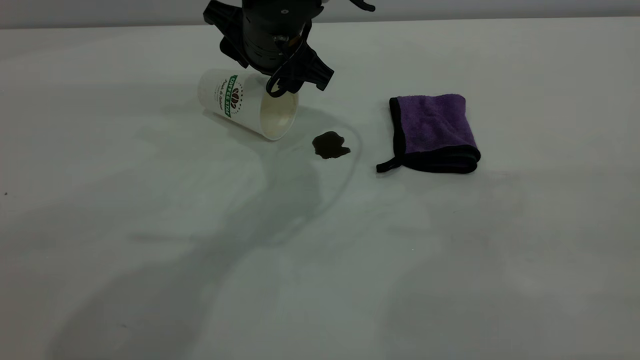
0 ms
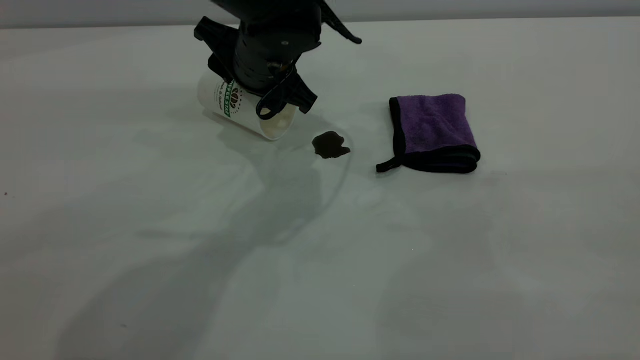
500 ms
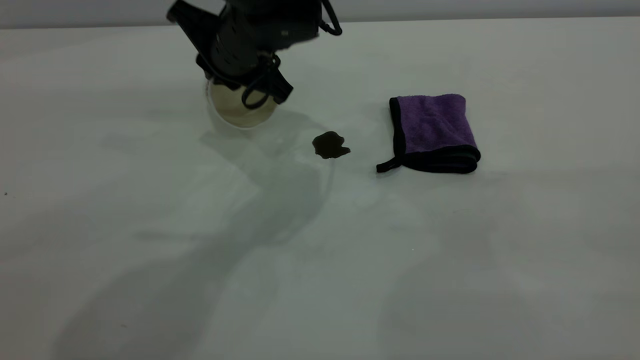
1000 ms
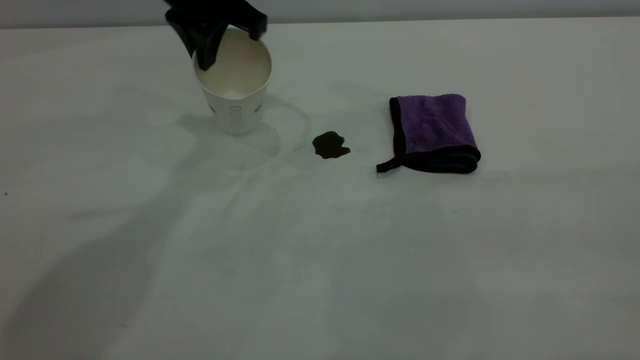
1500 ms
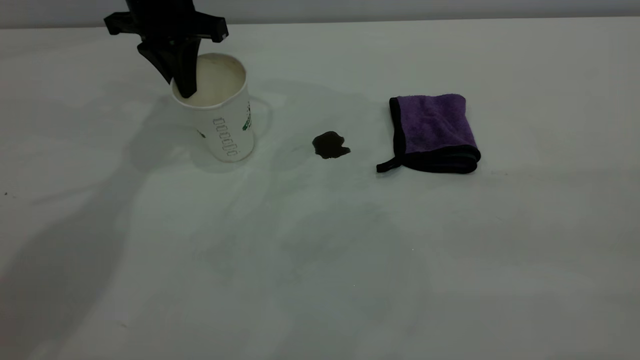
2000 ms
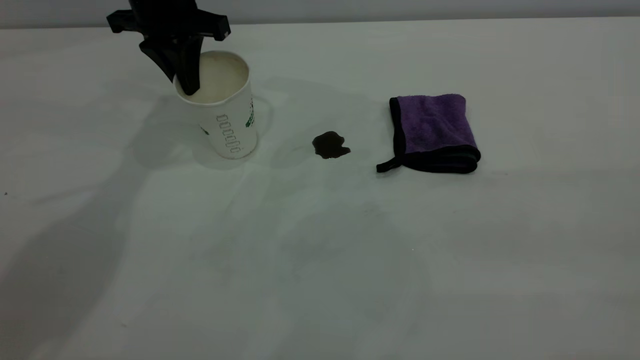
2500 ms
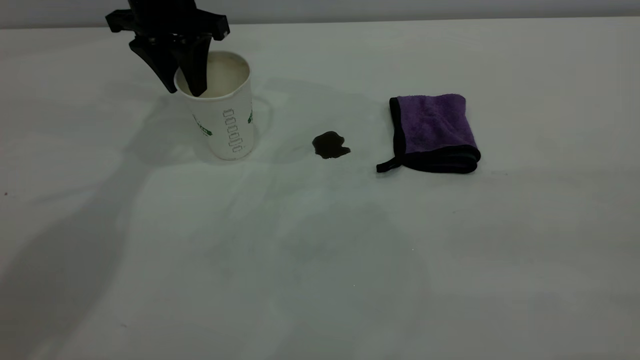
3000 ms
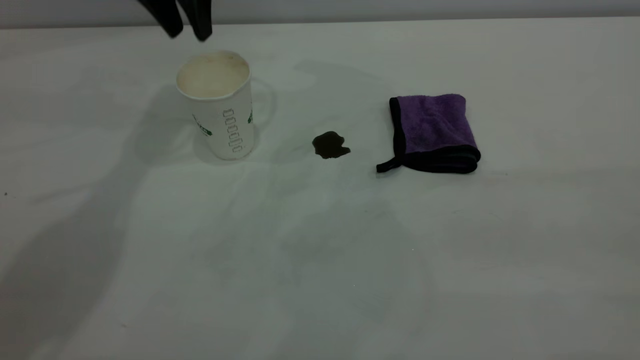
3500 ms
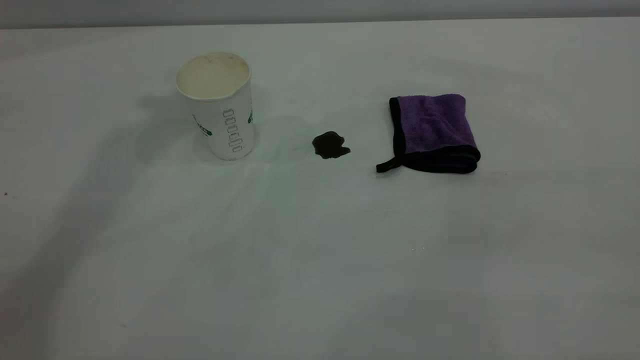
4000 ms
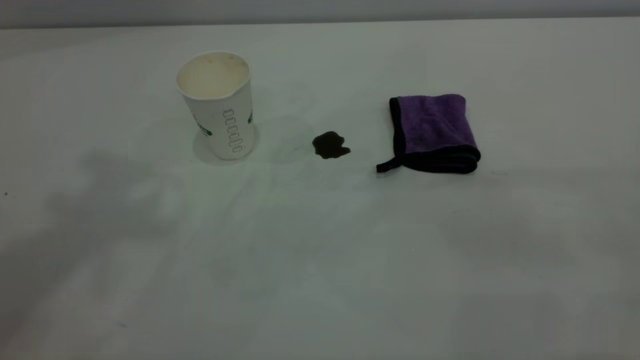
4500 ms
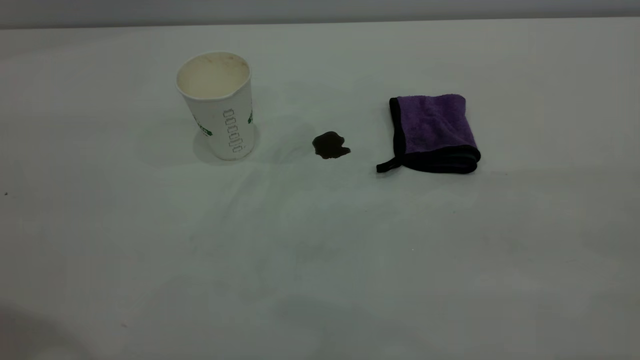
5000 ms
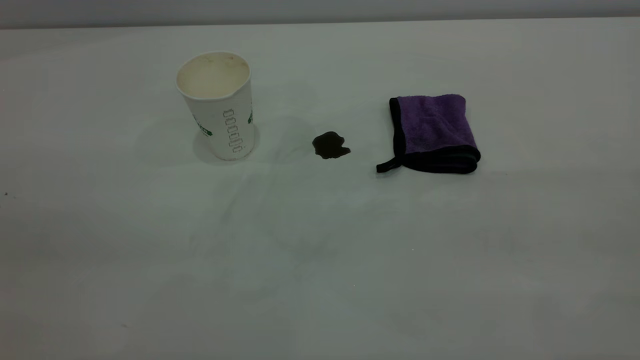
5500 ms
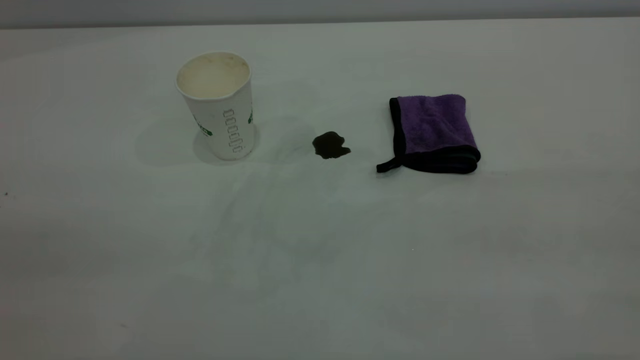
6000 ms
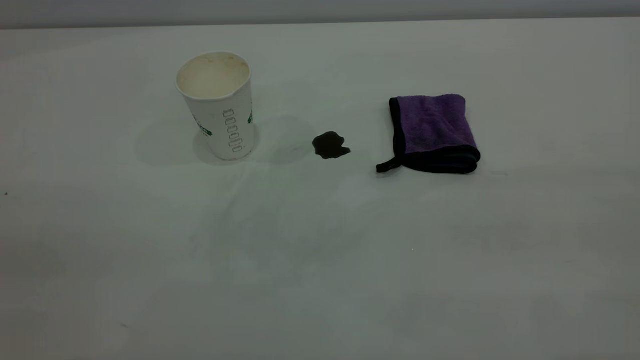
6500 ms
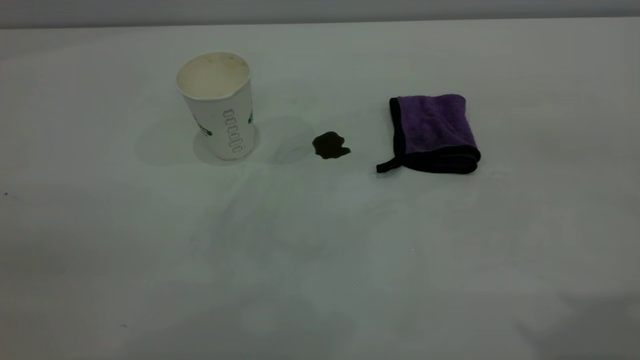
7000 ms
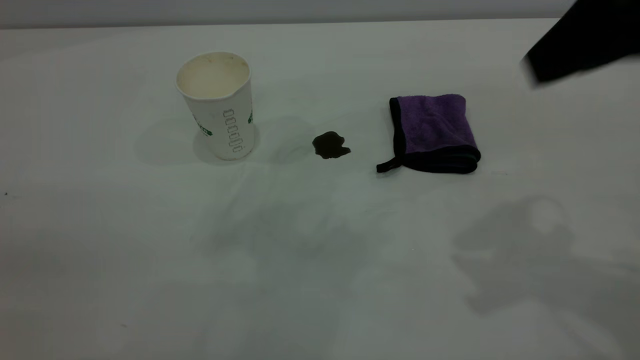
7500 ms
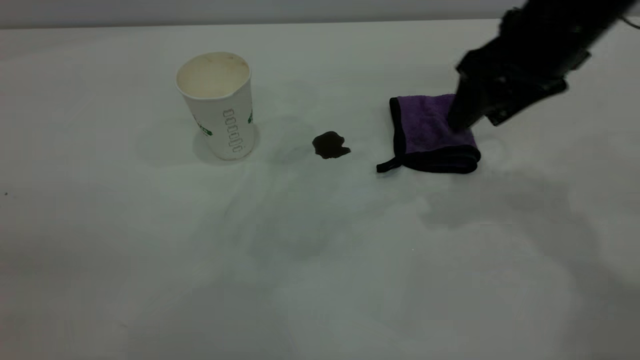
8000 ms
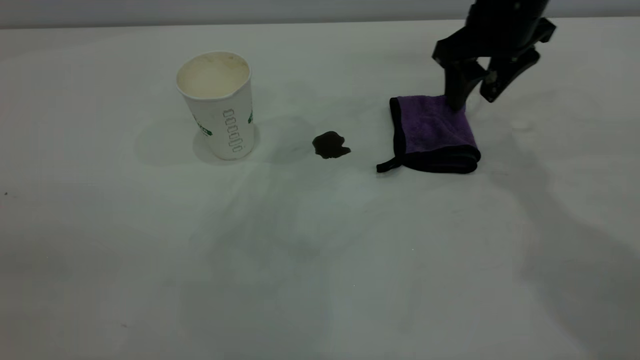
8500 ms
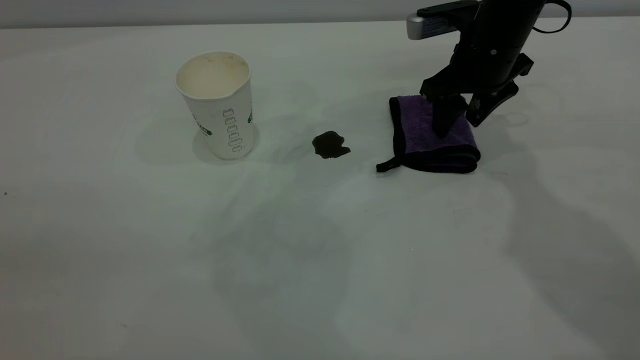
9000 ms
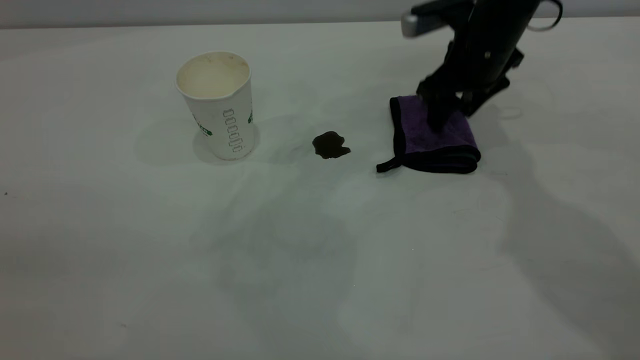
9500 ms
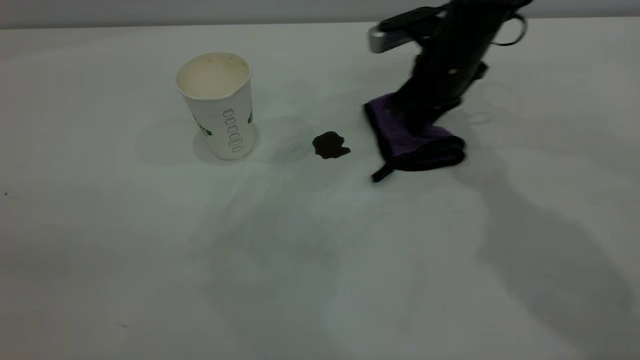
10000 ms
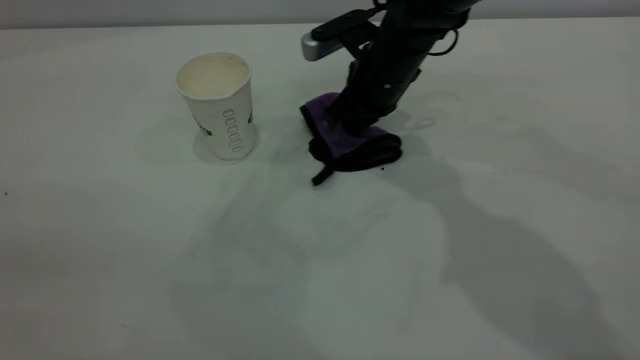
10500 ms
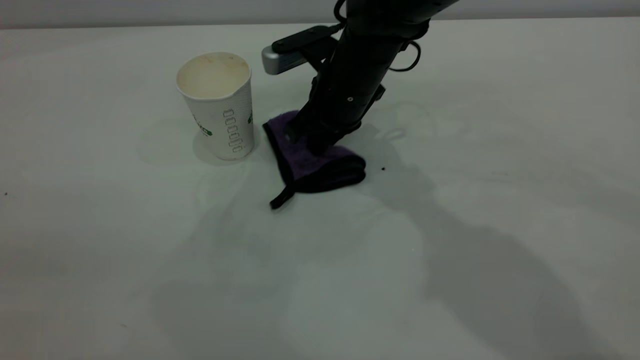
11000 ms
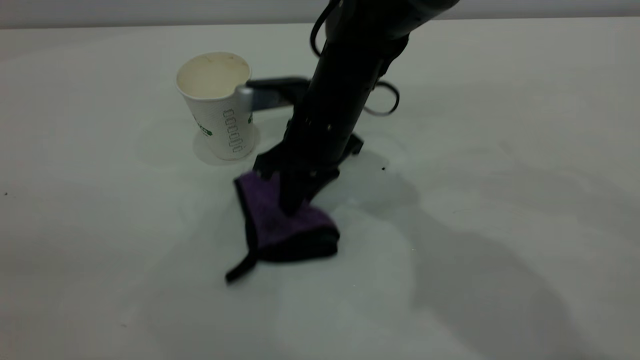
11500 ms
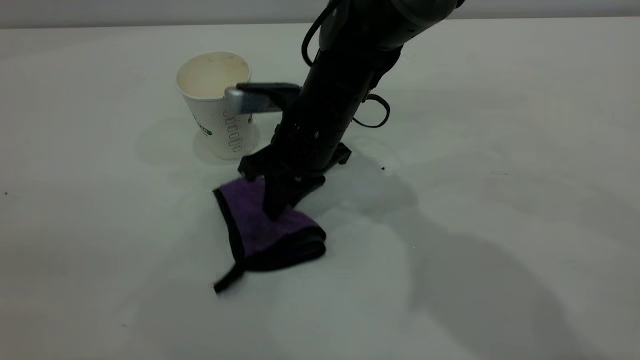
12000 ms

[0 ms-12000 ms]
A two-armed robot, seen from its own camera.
Task of the whole recording: the left gripper pick up the fallen cup and place it upright, the right gripper grasp the purple rag and wipe the coffee stain on the table, the right gripper put the purple rag back in its original position.
Step, 0 ms to 3000 ms: Stand the paper cup upright.
0 ms to 2000 ms: The left gripper goes about 15 cm to the left and forward, and closes.
2000 ms to 4000 ms: The left gripper moves upward, roughly 30 cm, and opens up.
6000 ms to 8000 ms: The right gripper goes some 40 cm forward and downward, and opens its fingers.
8000 ms to 10000 ms: The right gripper moves downward, forward and to the left, approximately 15 cm, and closes.
10000 ms to 12000 ms: The right gripper travels to the left and backward by approximately 15 cm.

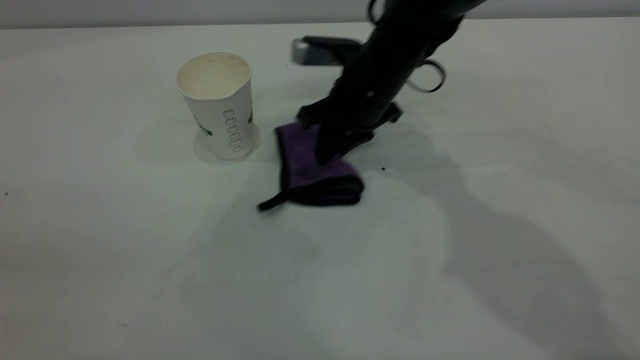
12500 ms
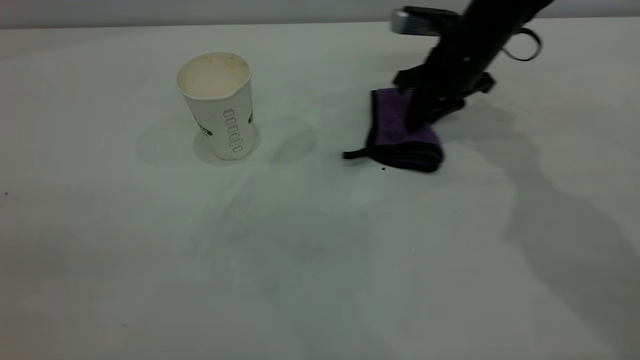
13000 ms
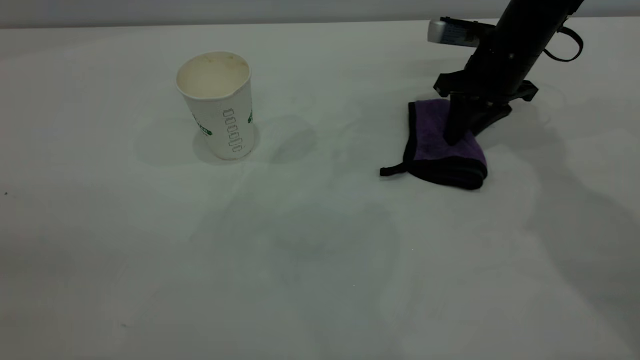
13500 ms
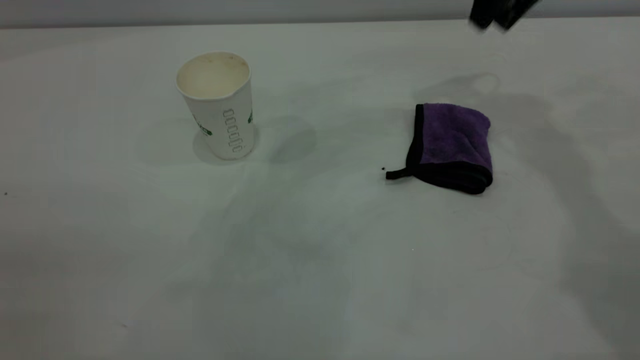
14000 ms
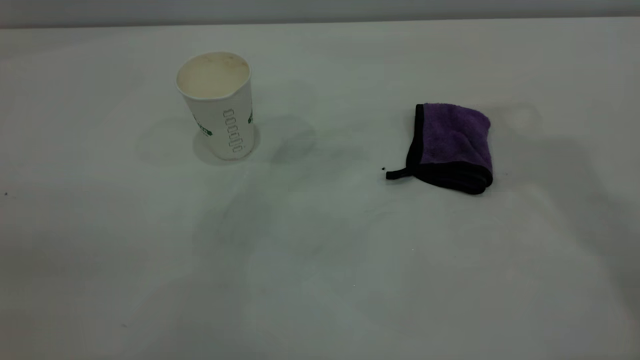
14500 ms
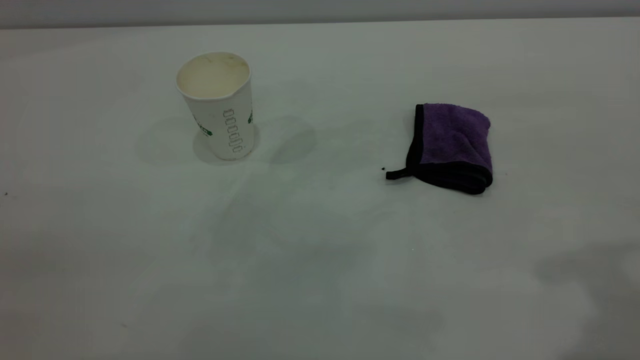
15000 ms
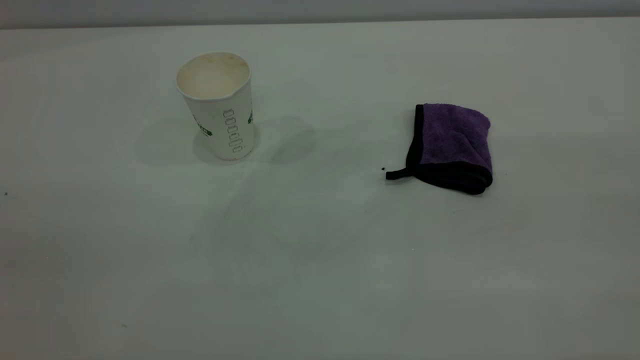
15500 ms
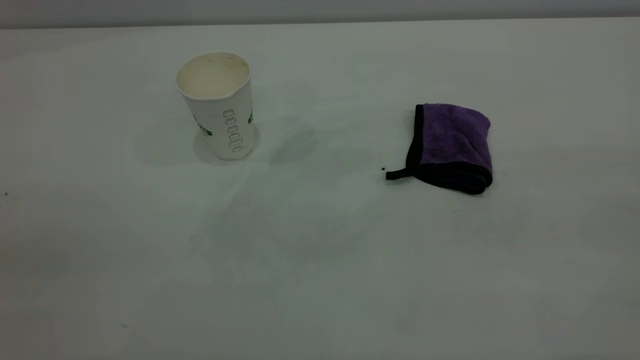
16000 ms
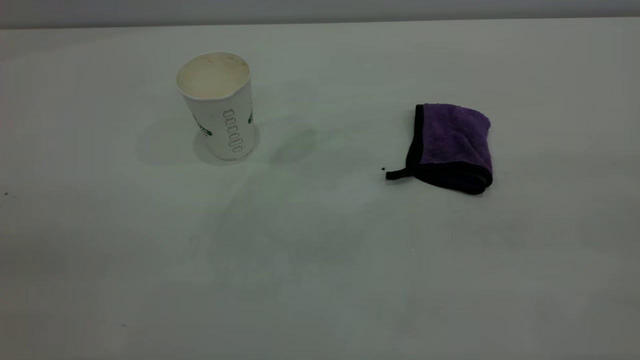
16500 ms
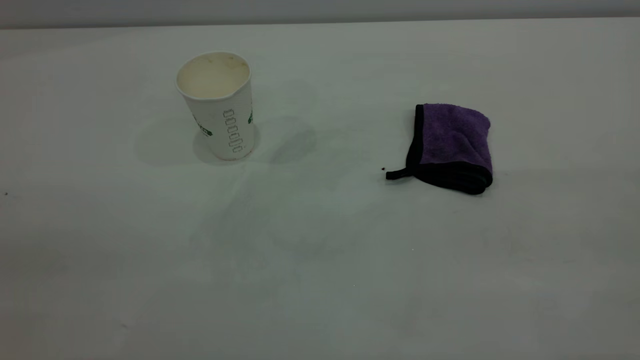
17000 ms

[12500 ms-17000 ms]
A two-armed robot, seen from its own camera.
Task of the whole recording: the left gripper pick up the fallen cup and place it upright, the right gripper grasp the purple rag and wipe the coffee stain on the table, the right gripper put the purple rag back in its original position.
12500 ms to 14500 ms: The right gripper heads upward and to the right, covering approximately 35 cm, and opens its fingers.
